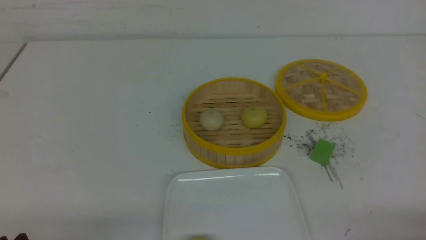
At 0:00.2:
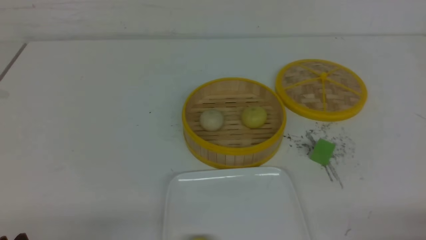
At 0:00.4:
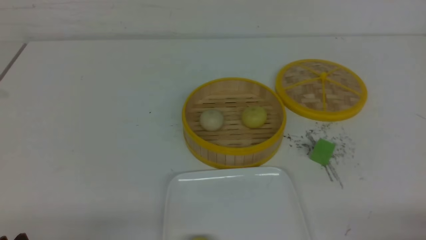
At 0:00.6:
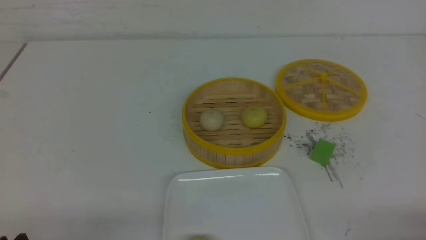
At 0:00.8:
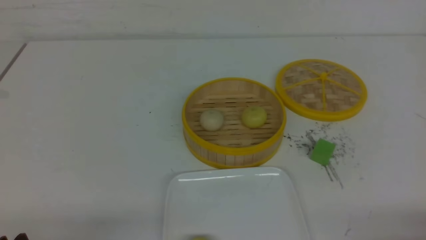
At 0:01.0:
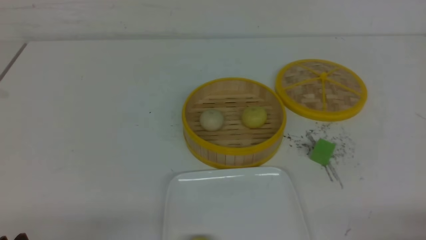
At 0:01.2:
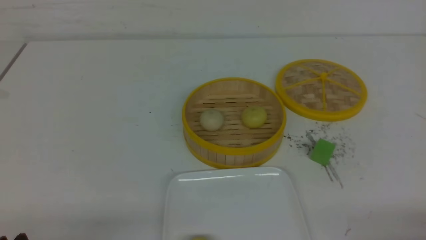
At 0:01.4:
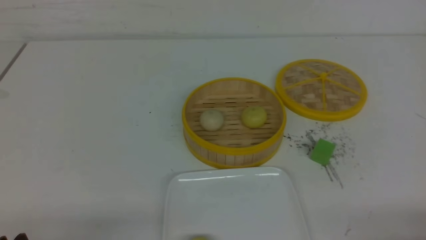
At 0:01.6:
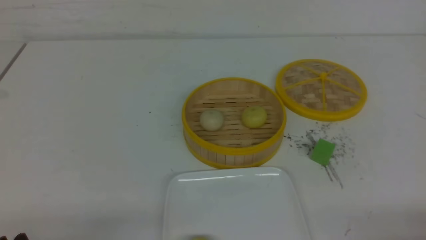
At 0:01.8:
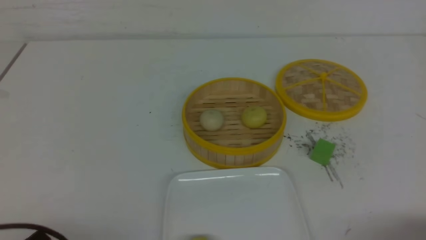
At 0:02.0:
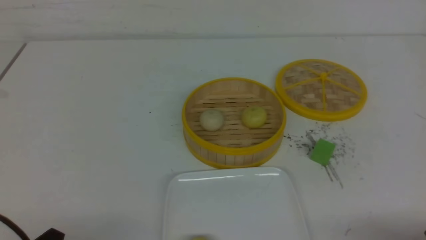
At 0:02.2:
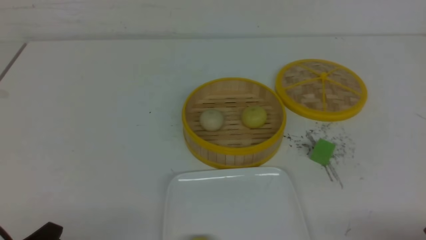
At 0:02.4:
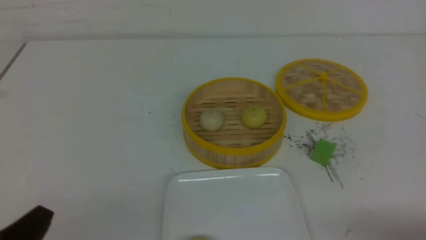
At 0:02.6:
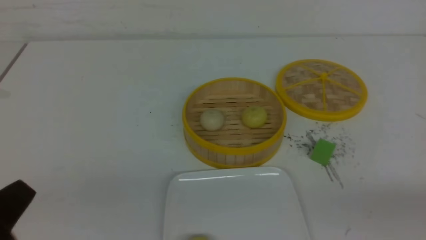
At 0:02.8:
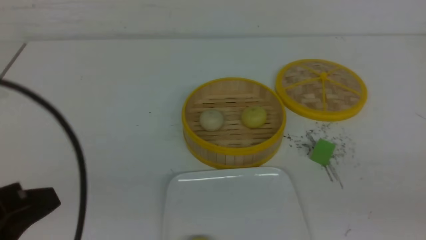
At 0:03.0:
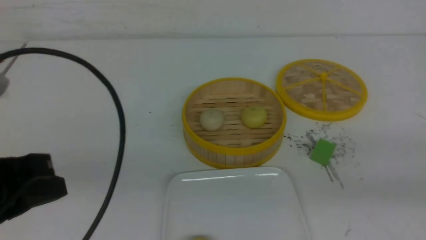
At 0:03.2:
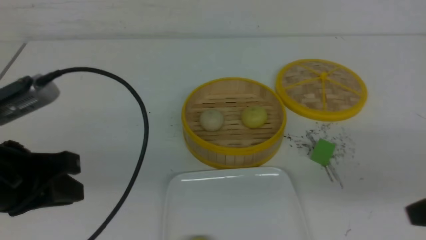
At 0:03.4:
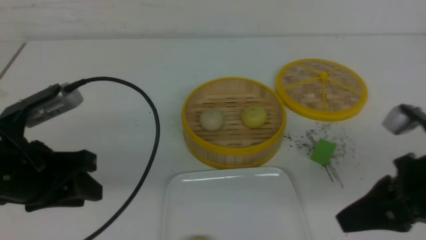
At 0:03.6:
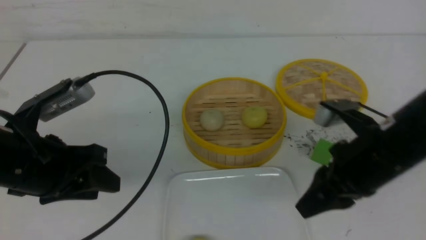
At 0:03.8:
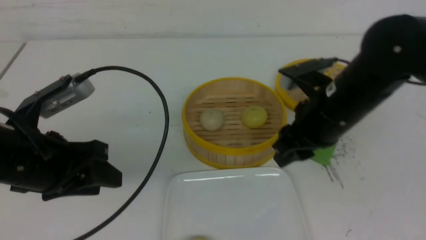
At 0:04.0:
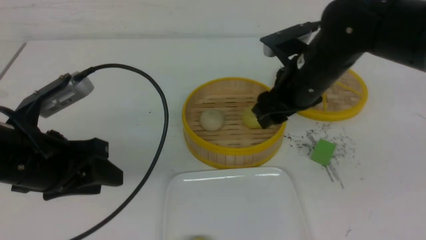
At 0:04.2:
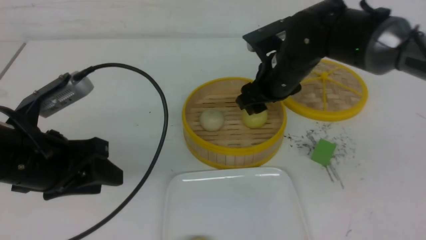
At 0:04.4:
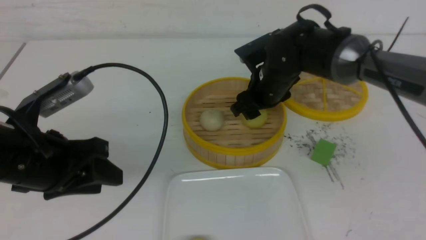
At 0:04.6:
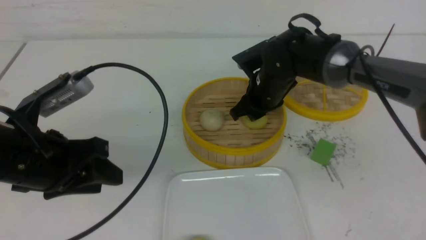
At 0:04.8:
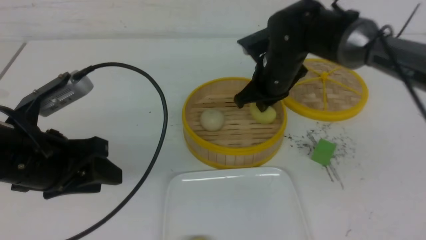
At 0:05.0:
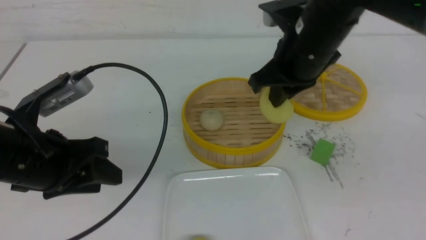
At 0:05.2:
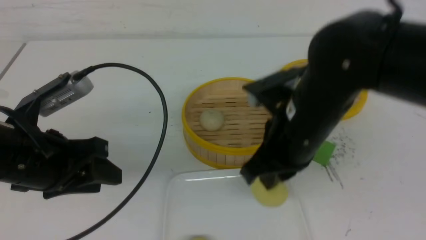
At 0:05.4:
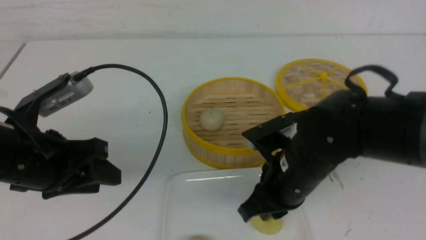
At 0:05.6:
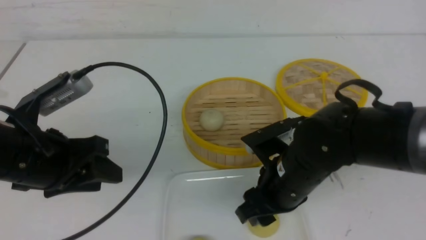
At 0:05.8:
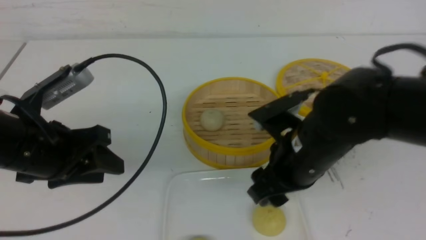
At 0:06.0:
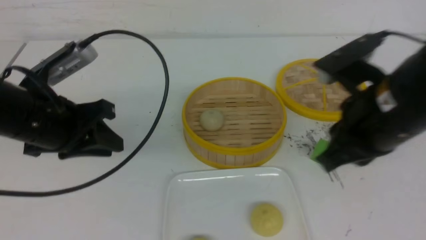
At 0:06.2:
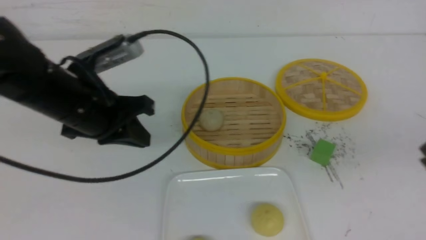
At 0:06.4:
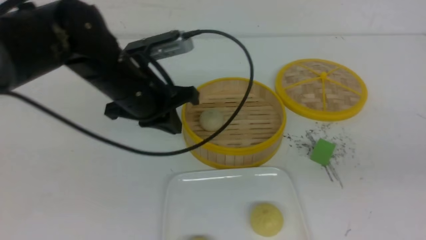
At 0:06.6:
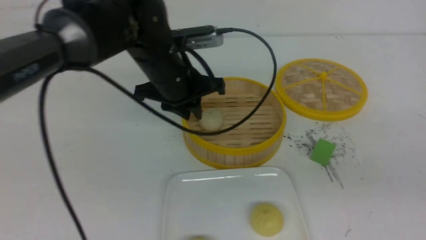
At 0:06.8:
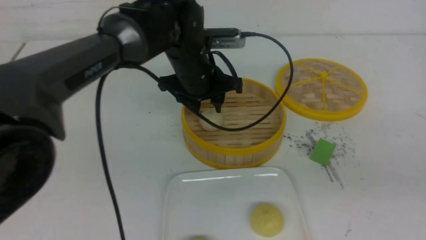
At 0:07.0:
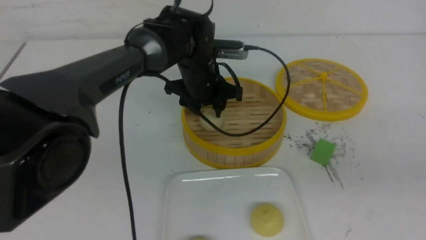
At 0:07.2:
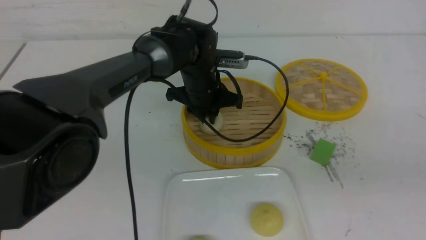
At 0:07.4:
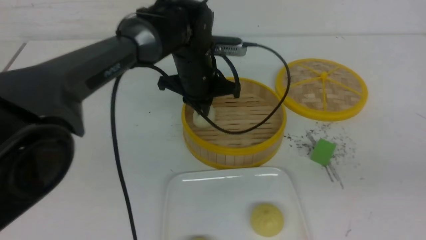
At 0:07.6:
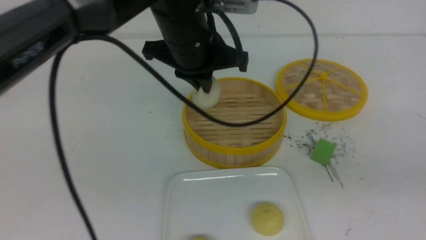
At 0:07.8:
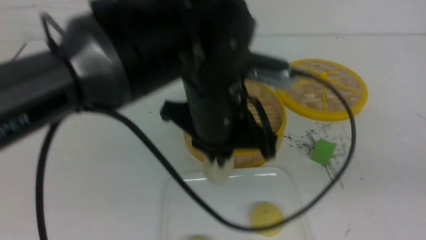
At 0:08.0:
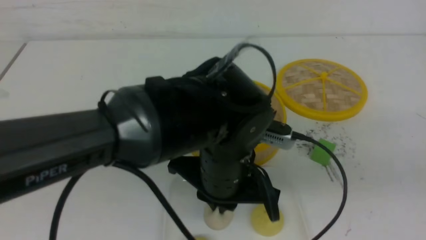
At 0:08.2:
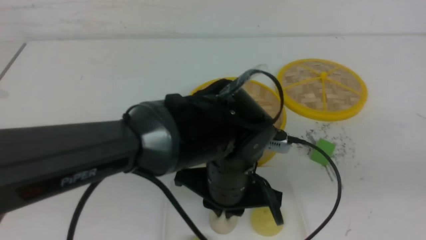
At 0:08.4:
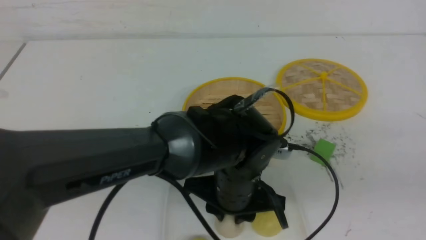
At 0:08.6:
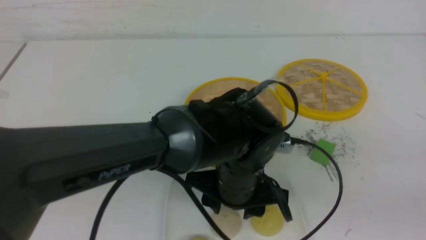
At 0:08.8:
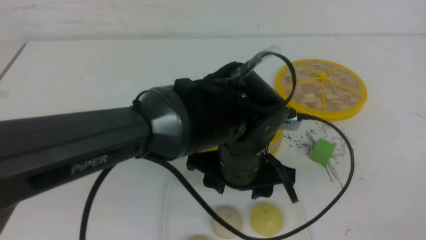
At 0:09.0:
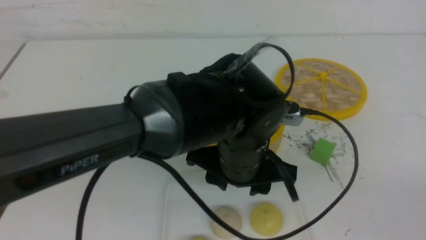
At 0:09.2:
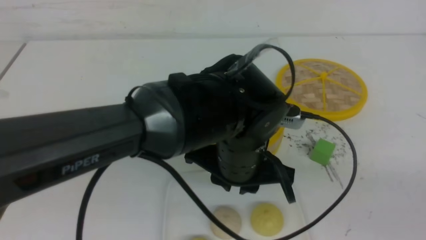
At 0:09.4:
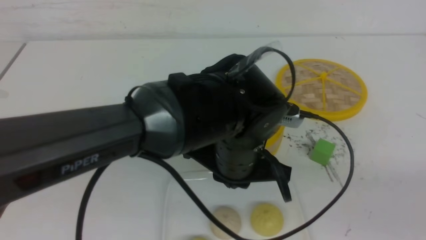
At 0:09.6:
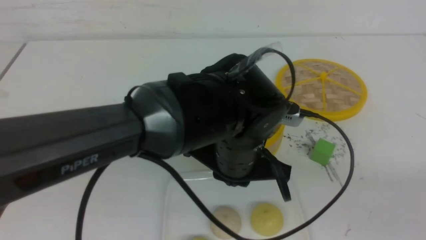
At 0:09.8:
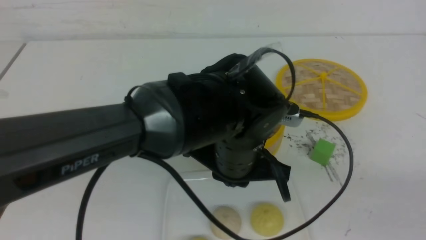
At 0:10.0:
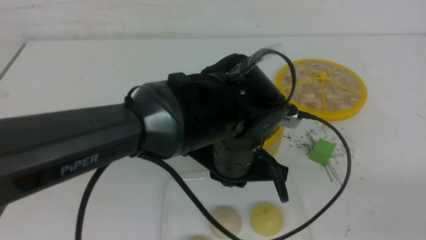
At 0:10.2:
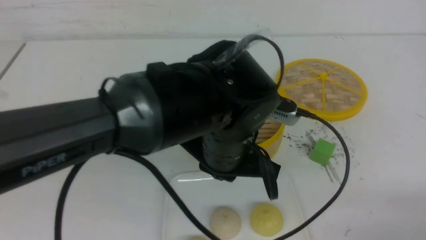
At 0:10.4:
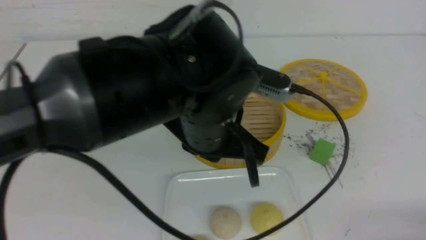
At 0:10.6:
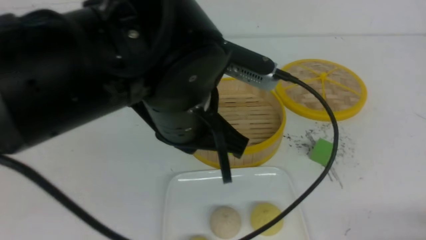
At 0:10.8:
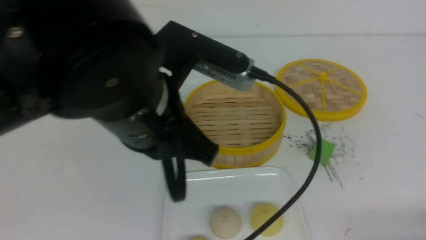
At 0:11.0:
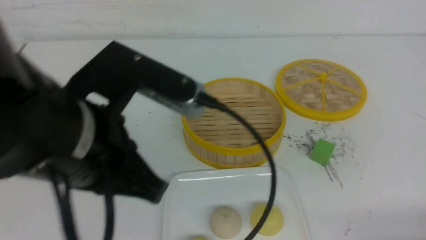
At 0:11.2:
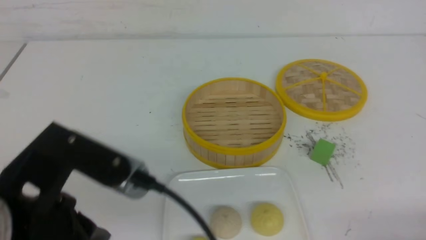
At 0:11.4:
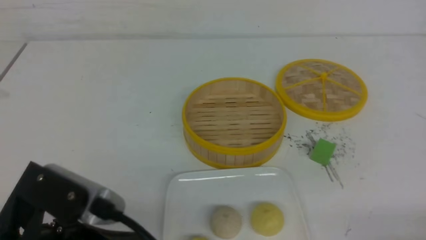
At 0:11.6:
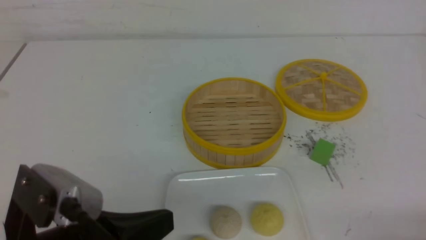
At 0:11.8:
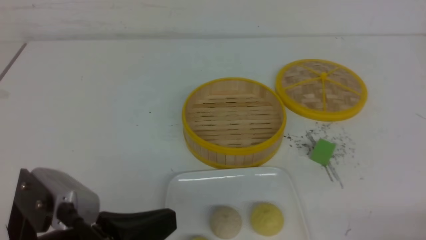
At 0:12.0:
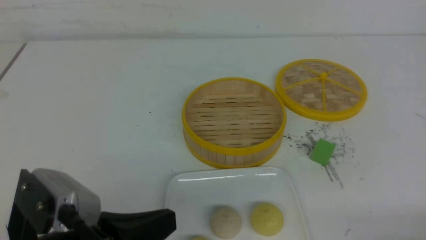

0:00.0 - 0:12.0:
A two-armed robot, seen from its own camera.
Step, 0:00.0 - 0:04.6: use the right arm to grab the steamed stuffed bun that is closest to it.
Step, 0:04.8 - 0:05.6: use the right arm to put the steamed stuffed bun into the plate.
Step, 0:05.8 - 0:07.4: use the left arm to grab the steamed stuffed bun that is closest to it.
Step, 0:07.6 - 0:08.4: use the left arm to put the steamed stuffed bun into the plate.
0:01.6 - 0:03.0: The right gripper goes about 15 cm upward, and closes; the left gripper goes approximately 15 cm upward and forward, and closes up.
0:03.0 - 0:04.4: The left gripper travels forward by about 10 cm, and opens its fingers. Meanwhile the right gripper heads forward and to the left, covering some 35 cm, and opens.
0:04.4 - 0:06.0: The left gripper shifts by roughly 5 cm, and closes. The right gripper goes some 25 cm backward, upward and to the right, and closes its fingers.
0:06.0 - 0:07.6: The left gripper shifts roughly 20 cm to the right, and closes its fingers, while the right gripper moves to the right and backward, roughly 15 cm.
0:07.6 - 0:09.0: The left gripper is displaced backward and downward by roughly 10 cm, and opens its fingers. The right gripper shifts roughly 10 cm backward.
0:09.0 - 0:10.4: The right gripper heads downward and forward, covering roughly 15 cm, while the left gripper heads upward, covering approximately 5 cm, and closes up.
0:10.4 - 0:12.0: The left gripper heads to the left and backward, covering about 20 cm.

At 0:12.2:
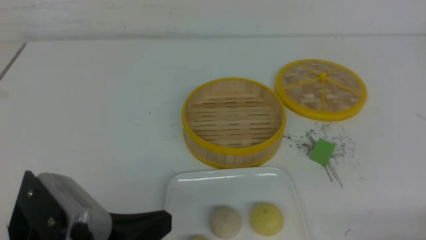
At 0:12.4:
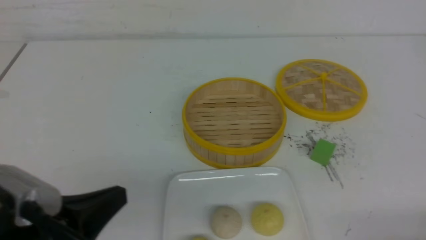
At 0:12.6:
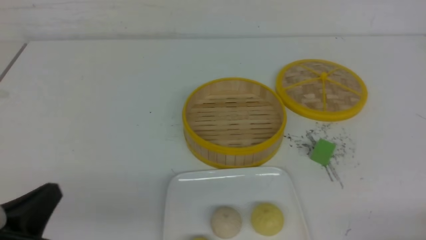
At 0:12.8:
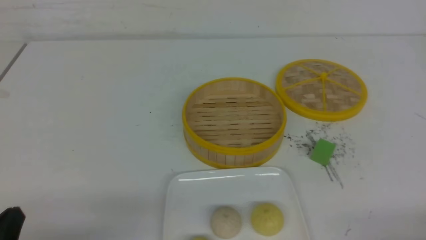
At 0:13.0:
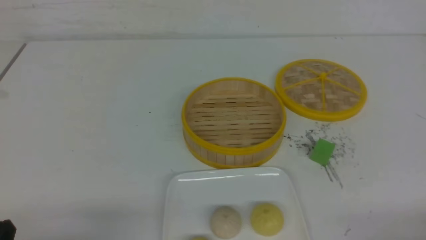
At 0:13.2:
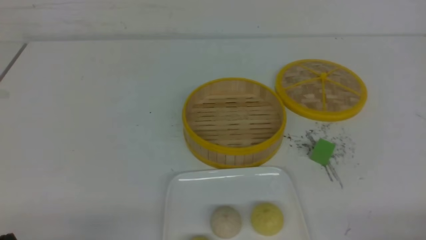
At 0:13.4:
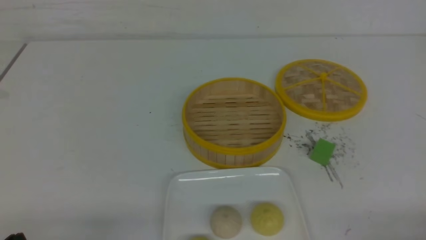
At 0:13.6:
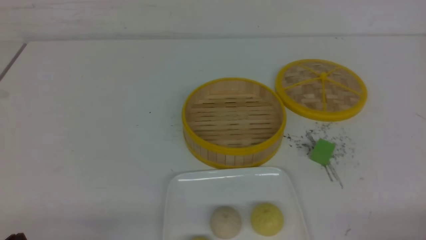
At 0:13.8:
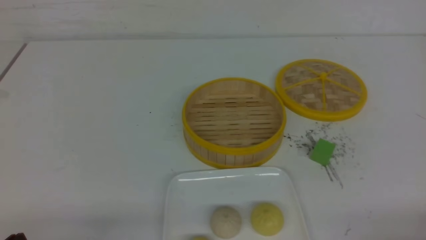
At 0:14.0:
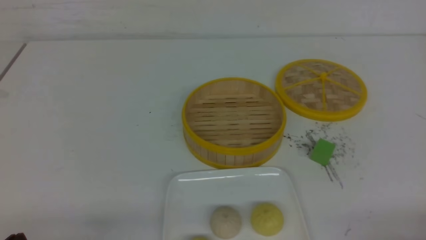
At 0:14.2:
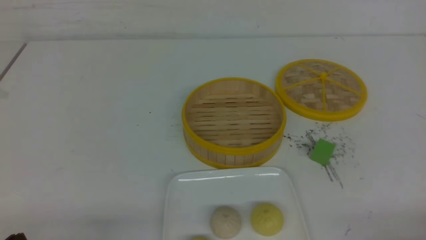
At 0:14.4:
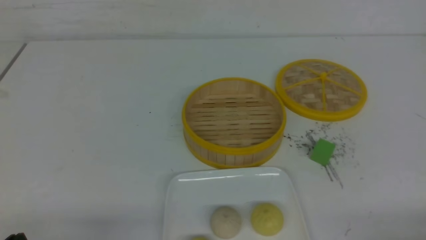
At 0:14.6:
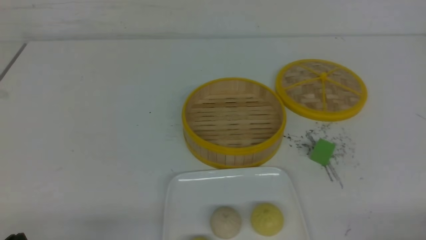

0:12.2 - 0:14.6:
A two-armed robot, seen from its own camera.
0:12.2 - 0:13.4: The left gripper goes roughly 15 cm to the left and downward.
0:13.4 - 0:14.6: Neither gripper changes place.
